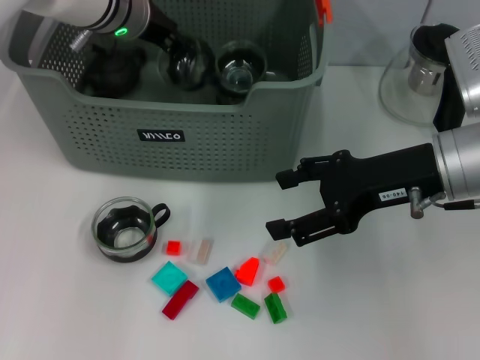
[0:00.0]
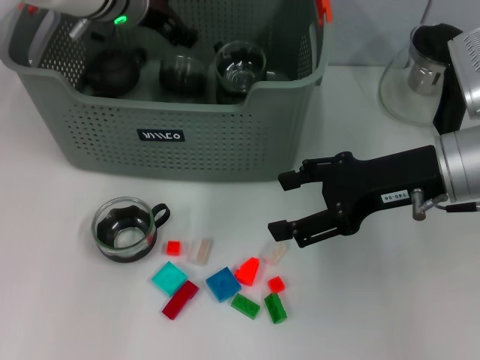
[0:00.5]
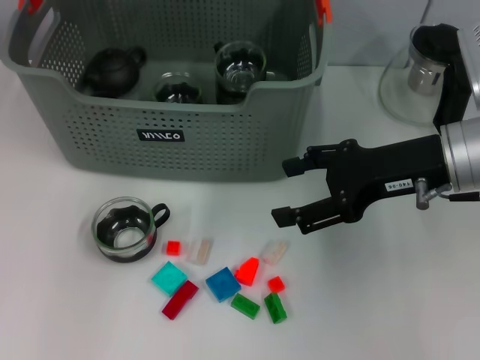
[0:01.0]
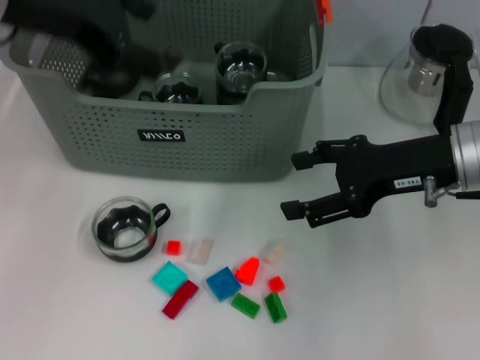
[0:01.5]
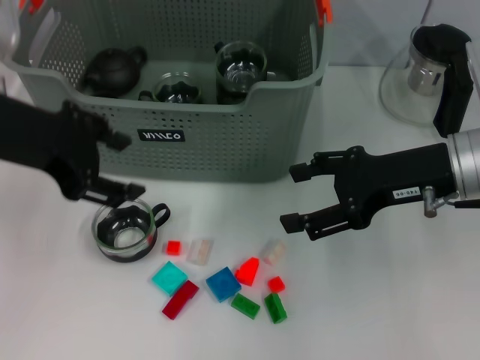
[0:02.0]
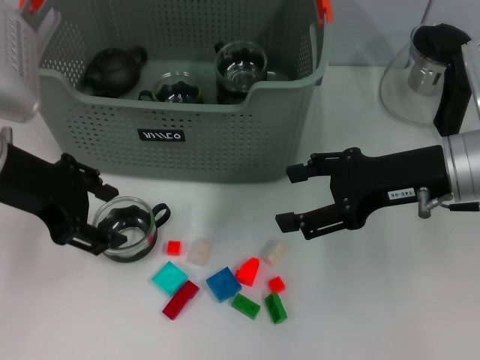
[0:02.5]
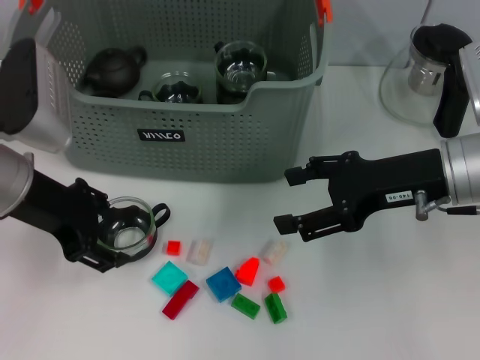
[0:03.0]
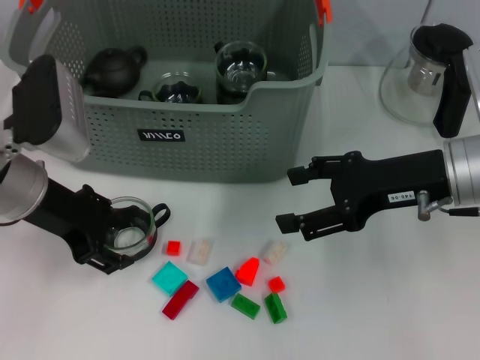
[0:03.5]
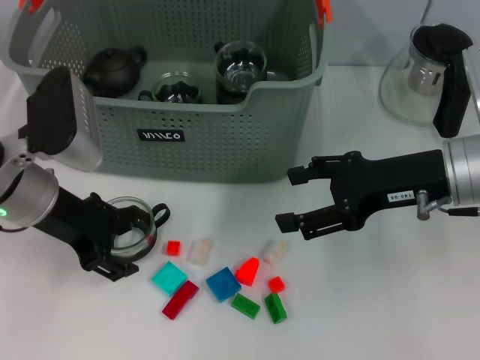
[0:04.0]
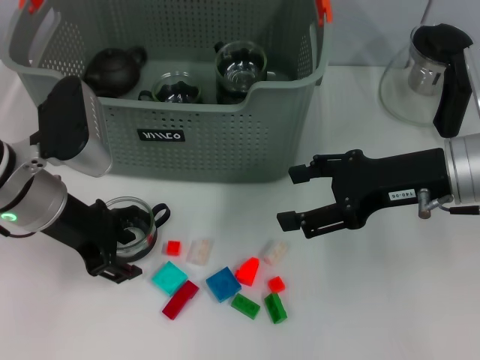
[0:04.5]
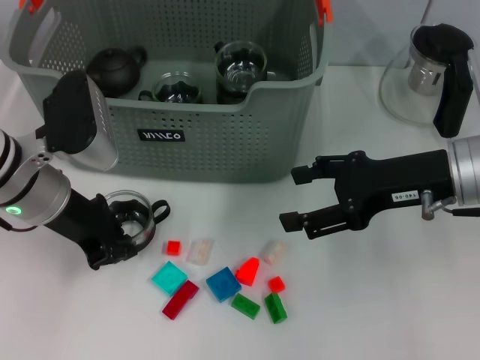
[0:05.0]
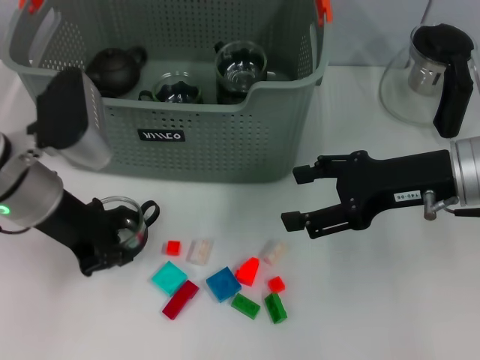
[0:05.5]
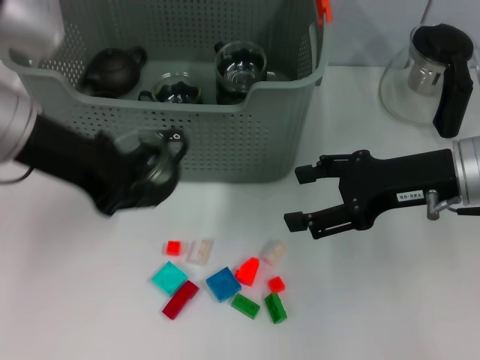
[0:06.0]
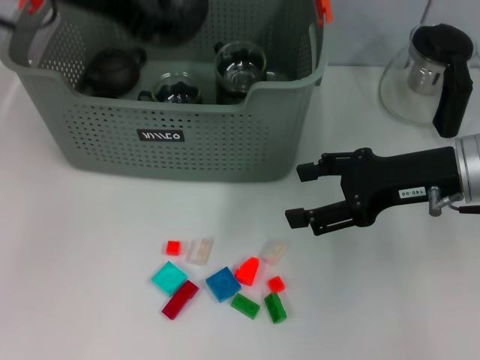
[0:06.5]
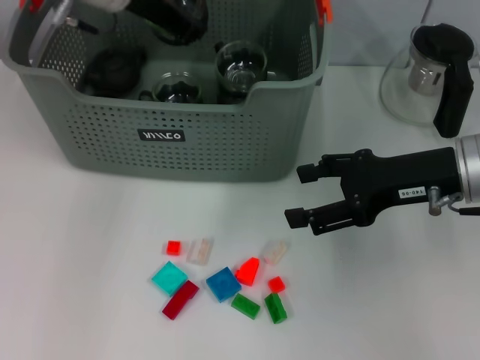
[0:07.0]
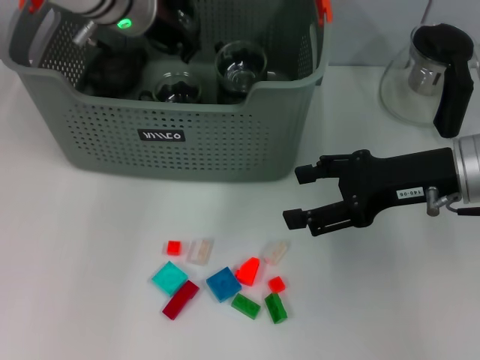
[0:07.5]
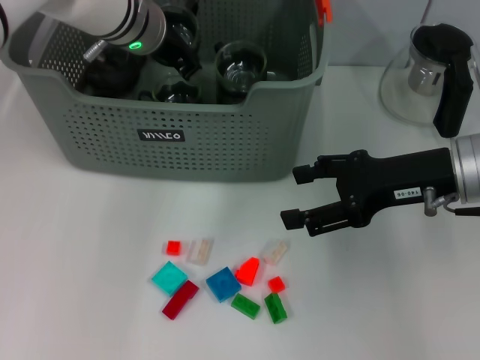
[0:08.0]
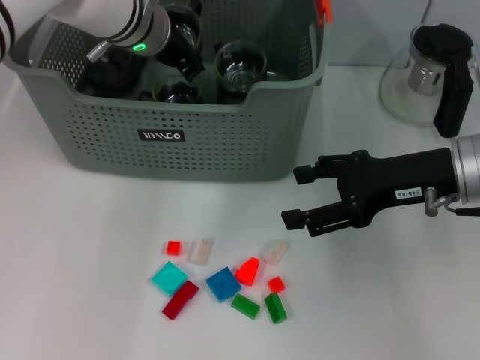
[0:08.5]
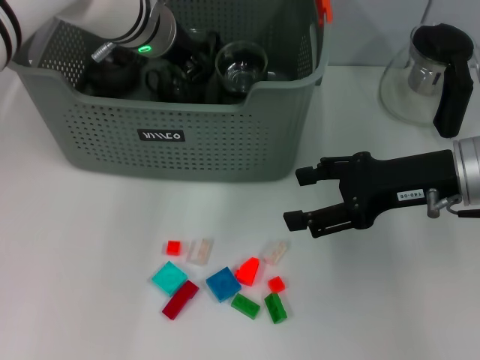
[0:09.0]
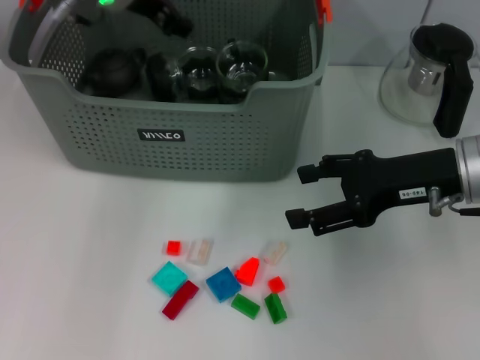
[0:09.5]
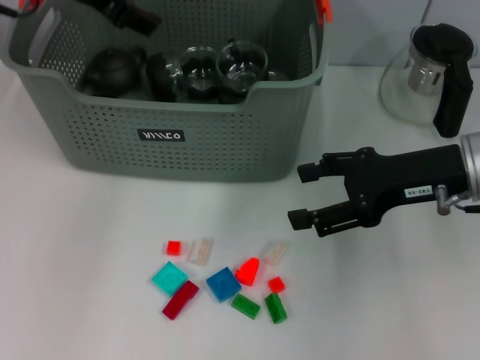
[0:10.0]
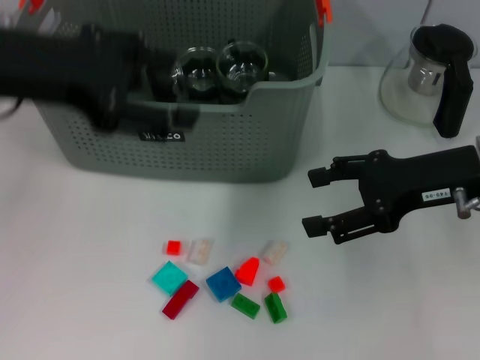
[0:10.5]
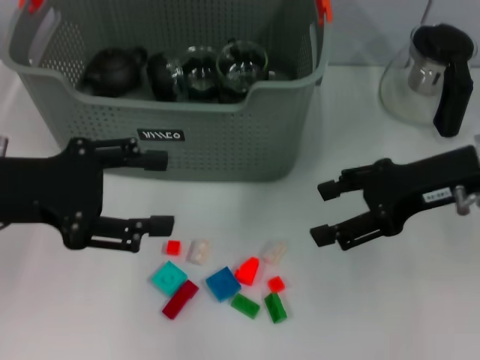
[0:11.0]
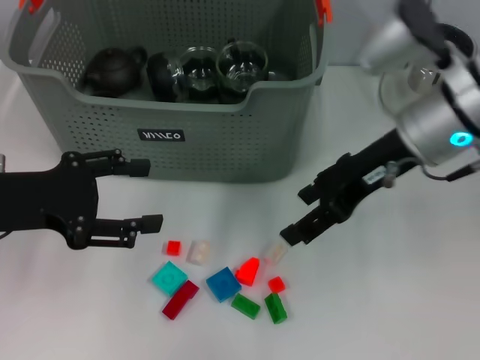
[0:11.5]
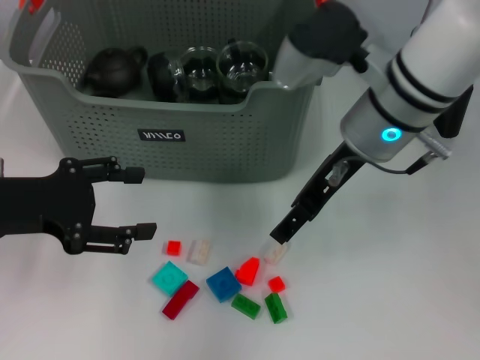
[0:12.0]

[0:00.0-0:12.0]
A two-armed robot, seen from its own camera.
Task of the whole recording: pick up the teacup on the table and place it into the storage bin, pick up the block on the table and place it into the storage bin.
Step, 0:00.5 to 0:05.0: Grasp the cup with left gripper.
Step, 0:05.5 to 0:08.5: Place the cup in the storage box with left gripper.
0:00.0 to 0:02.0: The left gripper goes roughly 20 cm backward and to the left, and opens up.
0:02.0 to 0:04.0: The left gripper goes roughly 10 cm downward.
0:04.0 to 0:06.0: The left gripper moves upward, roughly 10 cm, and closes up.
0:06.0 to 0:08.0: The left gripper goes roughly 20 cm forward and to the right.
0:08.0 to 0:10.0: The left gripper moves upward, backward and to the left, some 15 cm, and opens.
0:10.0 to 0:12.0: The left gripper goes some 20 cm downward, backward and to the left. Meanwhile the right gripper travels to the left by some 10 cm.

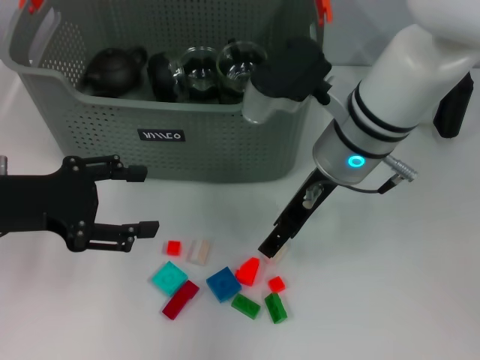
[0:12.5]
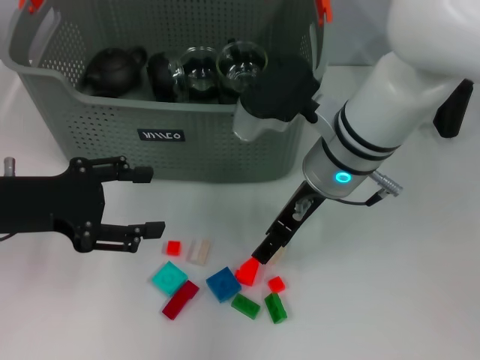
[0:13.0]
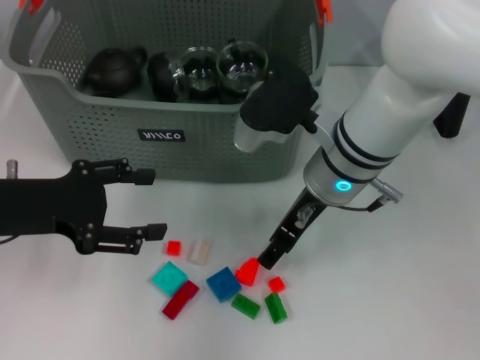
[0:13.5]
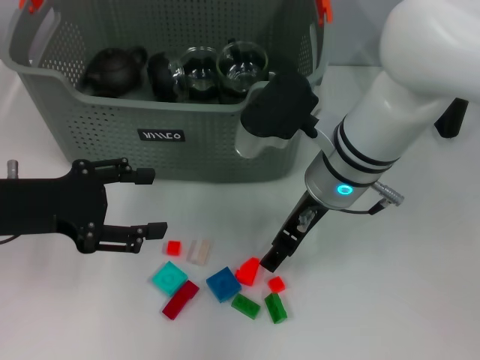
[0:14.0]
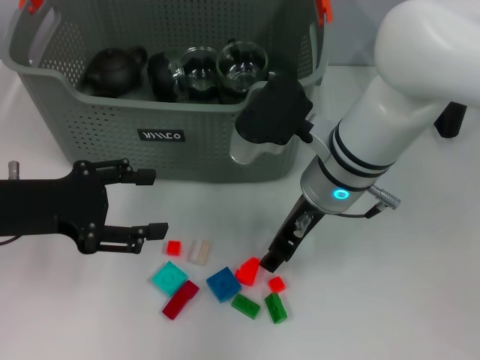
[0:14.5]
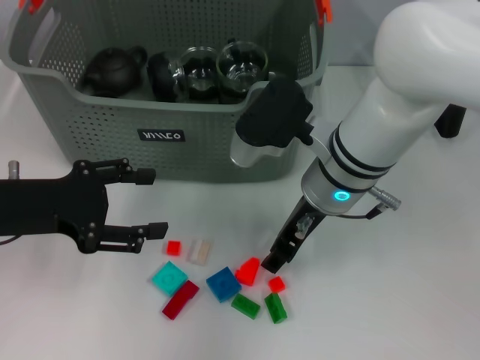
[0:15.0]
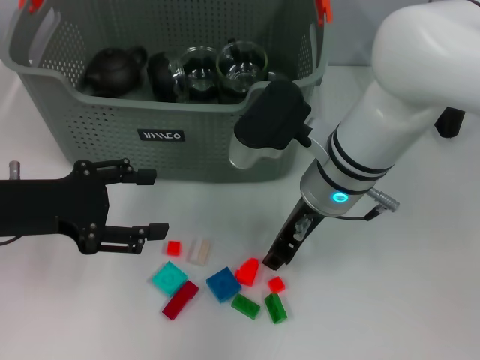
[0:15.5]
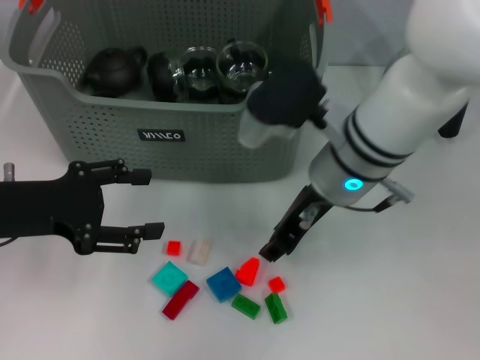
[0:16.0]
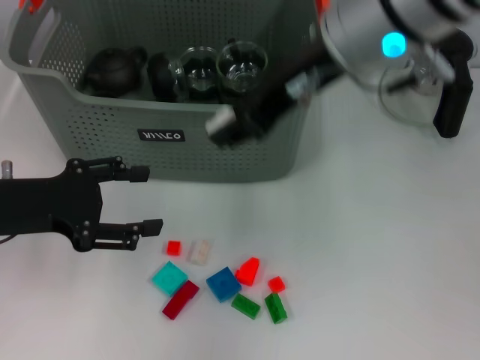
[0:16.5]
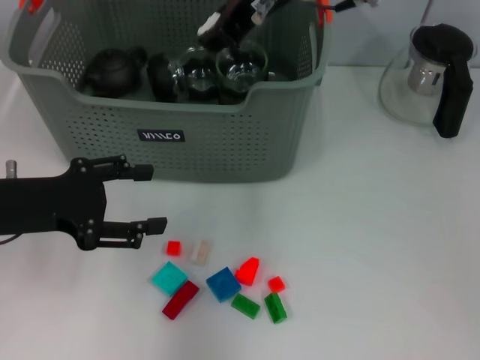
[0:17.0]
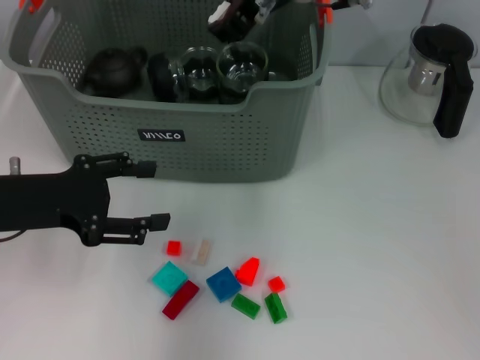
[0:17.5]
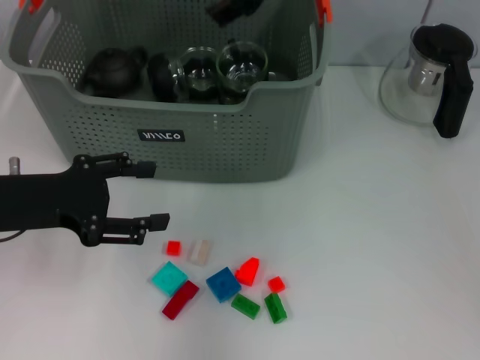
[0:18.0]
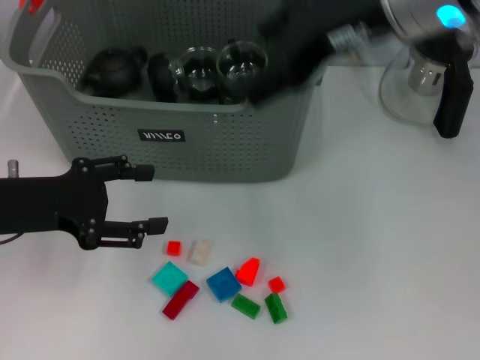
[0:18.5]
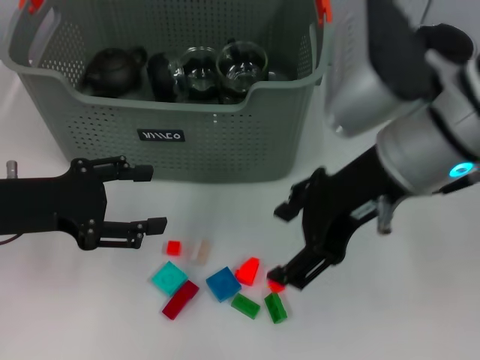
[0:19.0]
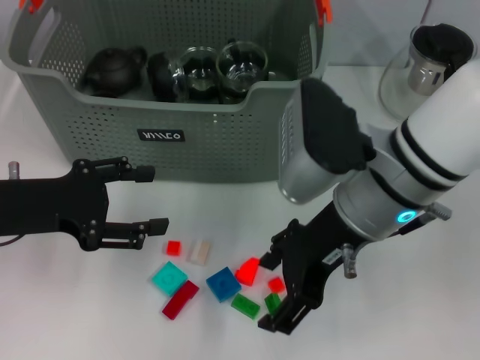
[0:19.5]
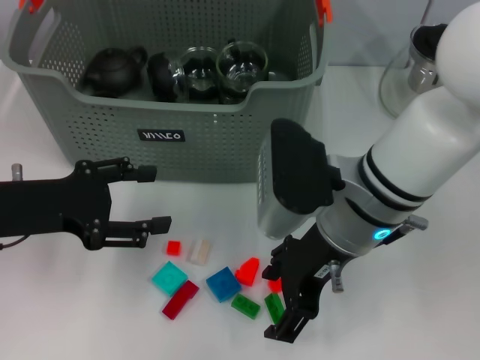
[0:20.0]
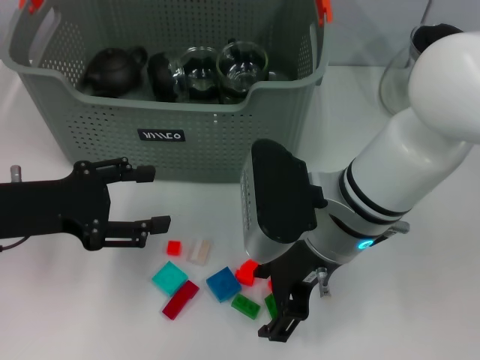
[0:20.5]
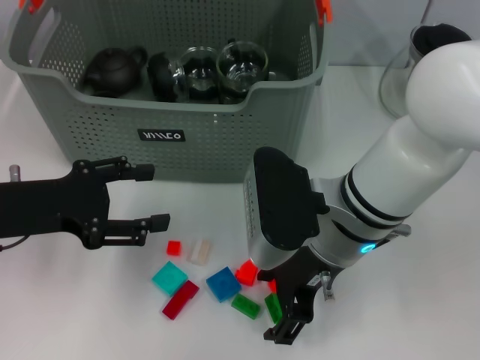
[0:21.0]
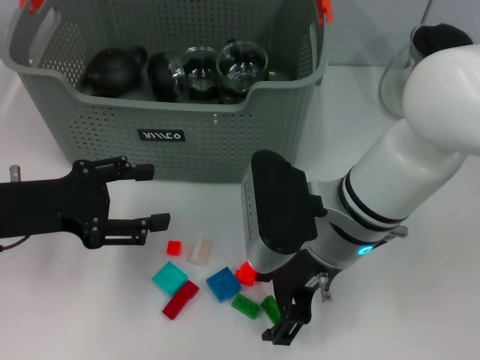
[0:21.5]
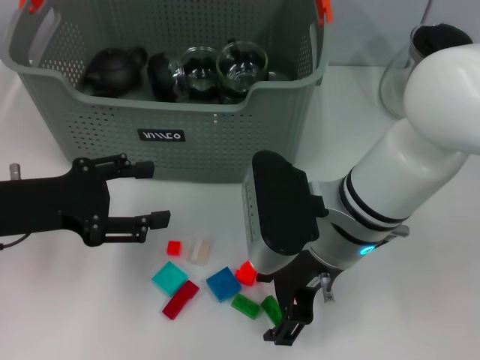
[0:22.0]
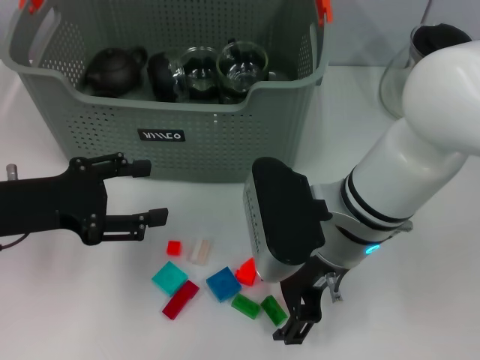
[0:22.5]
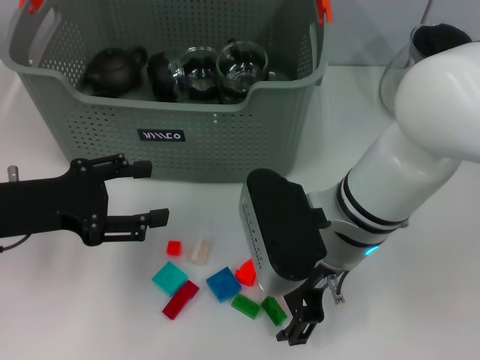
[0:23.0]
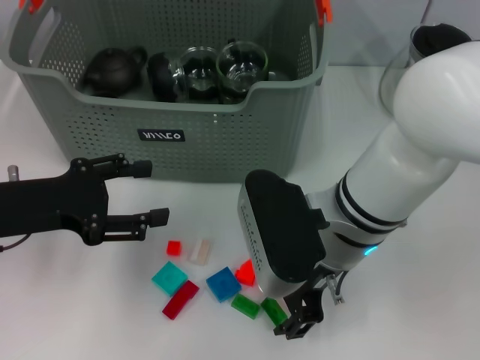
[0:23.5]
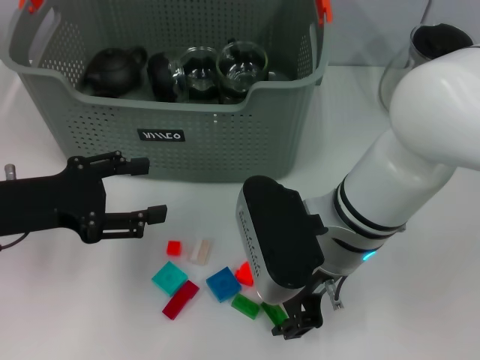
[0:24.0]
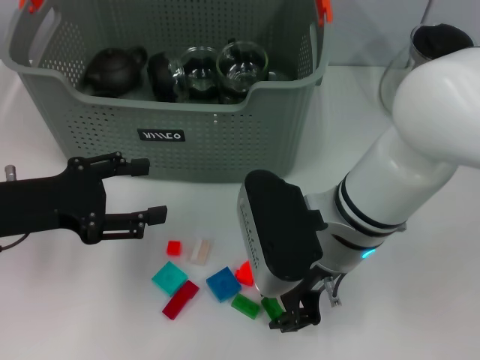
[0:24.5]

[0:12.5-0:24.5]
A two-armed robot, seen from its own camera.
Task of the whole recording: pick up the teacup on the table and place it into the storage bin, pick up the block on the table and place it into the storage bin.
Step, 0:12.5 to 0:15.5: Grasp the white block with right gripper.
Step, 0:16.0 to 0:17.5: Place the white block in the storage box with right gripper.
0:12.5 to 0:14.5: The grippers stay close to where they were, moving slightly.
0:14.5 to 0:16.5: The right gripper shifts roughly 15 cm upward.
0:16.5 to 0:18.5: The right gripper travels forward and back again, roughly 10 cm each way, and opens its fingers.
0:18.5 to 0:20.5: The right gripper is displaced downward by roughly 15 cm.
0:20.5 to 0:22.5: The grippers stay close to where they were, moving slightly.
0:22.5 to 0:24.5: The right gripper closes up.

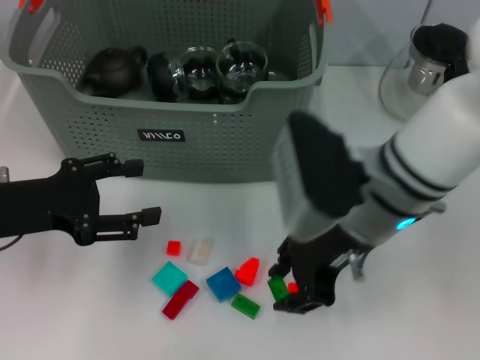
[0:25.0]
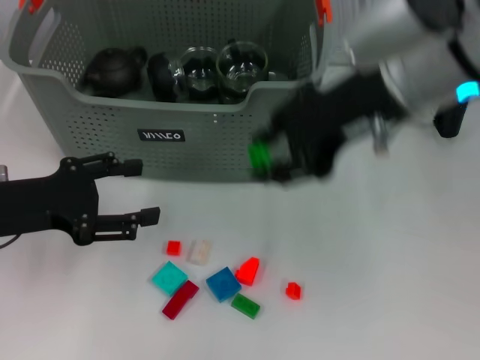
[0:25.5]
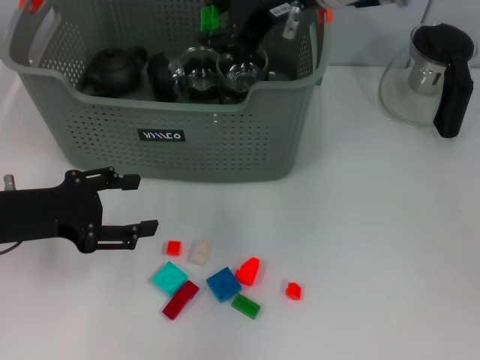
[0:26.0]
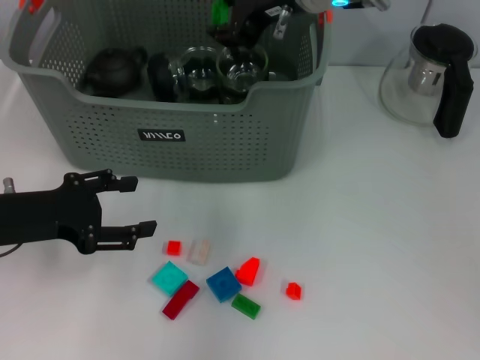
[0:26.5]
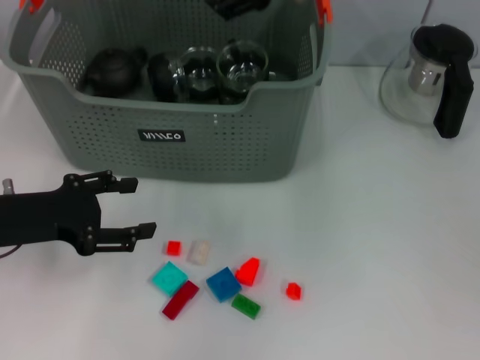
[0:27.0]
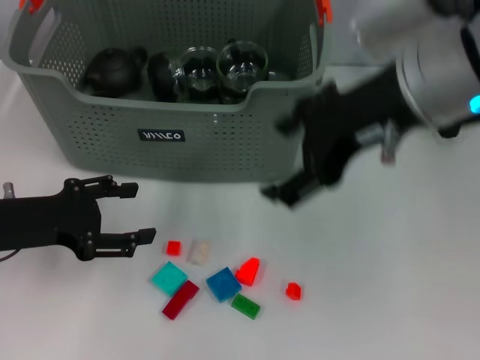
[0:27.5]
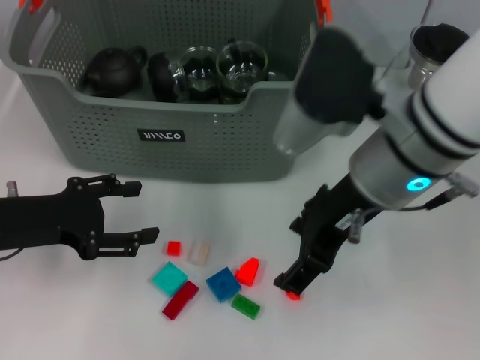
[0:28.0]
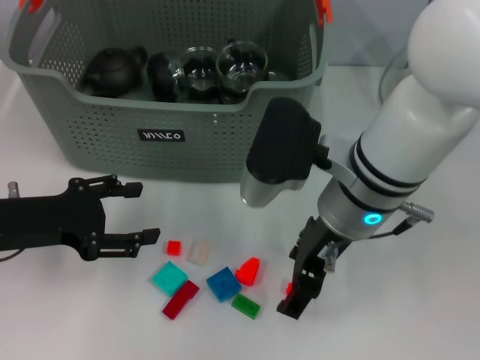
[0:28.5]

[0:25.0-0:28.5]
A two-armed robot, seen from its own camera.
Task of the whole recording: pick up the teacup on the table and place it into the storage bin, pick up the block on the table and place it into the storage bin.
Step, 0:25.0 to 0:26.5: Place the green block in the storage box with right gripper.
0:25.0 to 0:27.0: The right gripper moves upward and forward, roughly 15 cm, and opens up.
0:27.0 to 0:28.5: The right gripper travels downward and backward by roughly 15 cm.
